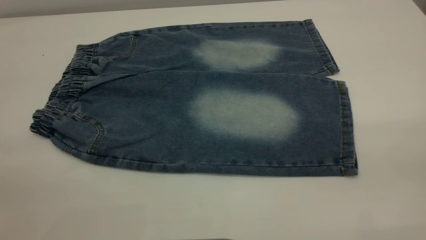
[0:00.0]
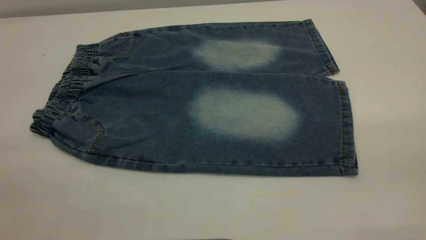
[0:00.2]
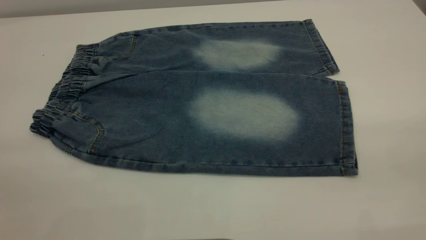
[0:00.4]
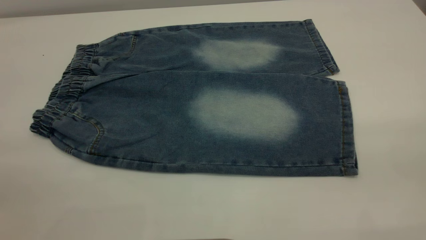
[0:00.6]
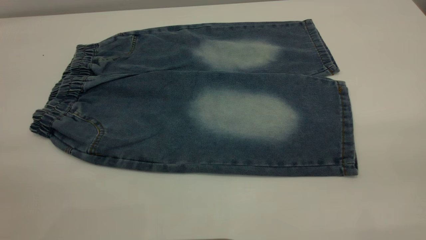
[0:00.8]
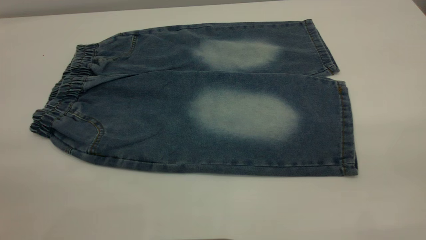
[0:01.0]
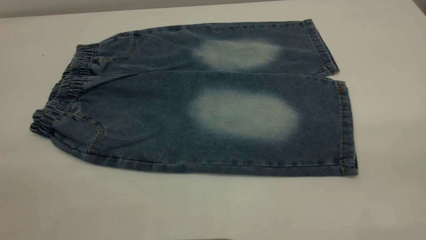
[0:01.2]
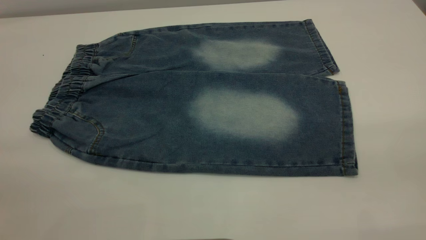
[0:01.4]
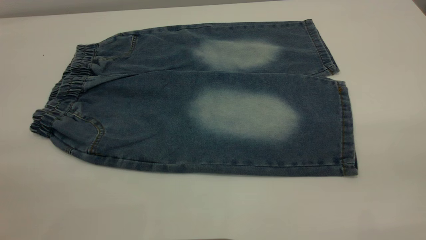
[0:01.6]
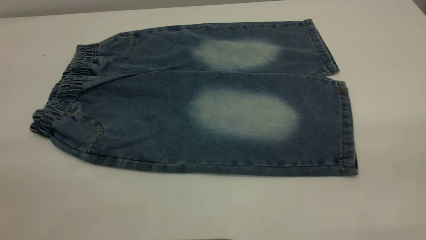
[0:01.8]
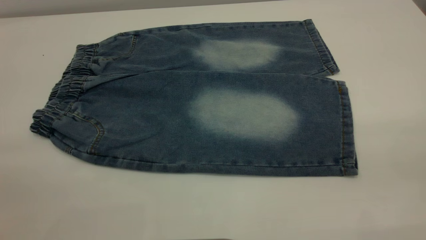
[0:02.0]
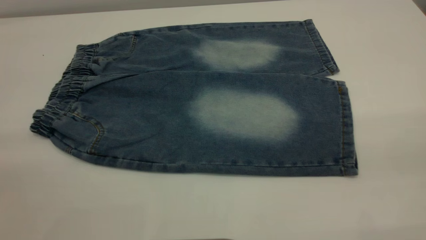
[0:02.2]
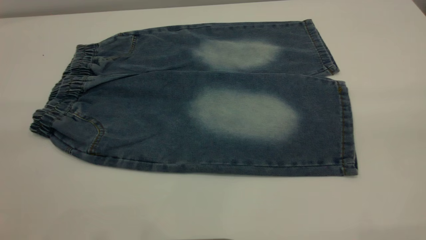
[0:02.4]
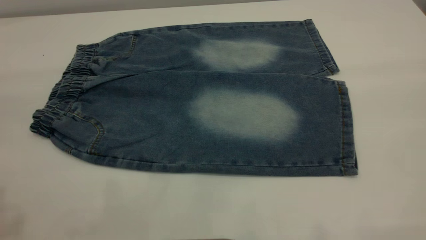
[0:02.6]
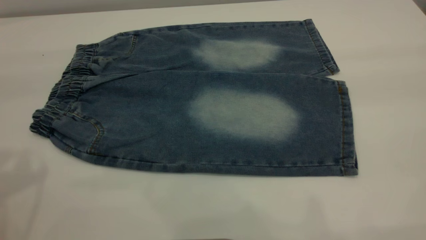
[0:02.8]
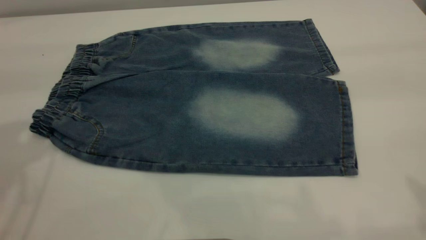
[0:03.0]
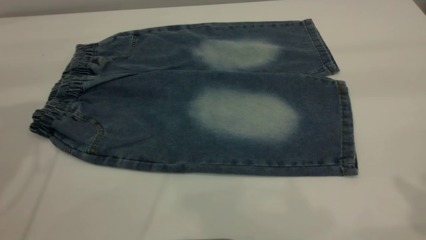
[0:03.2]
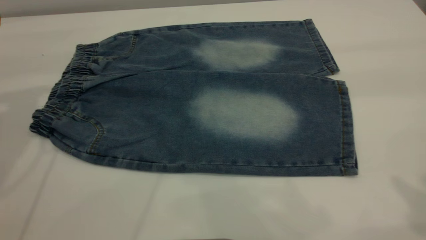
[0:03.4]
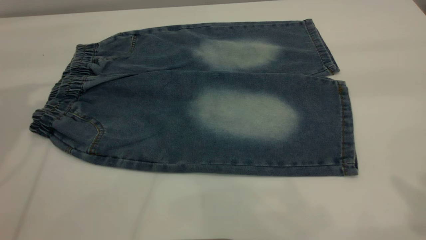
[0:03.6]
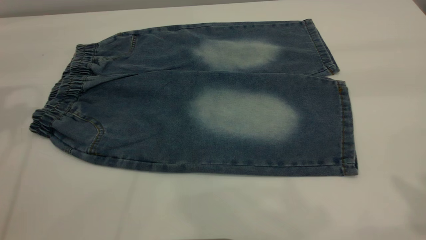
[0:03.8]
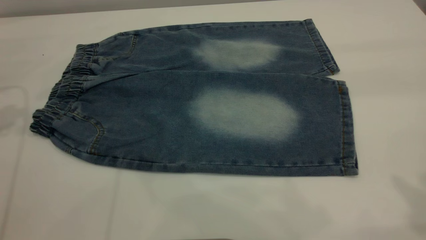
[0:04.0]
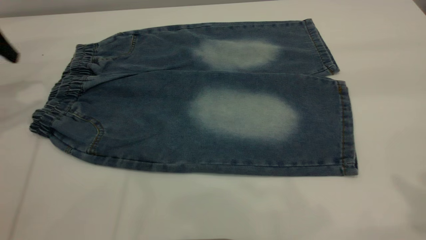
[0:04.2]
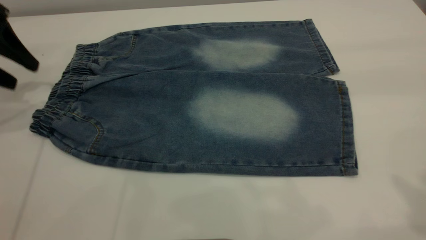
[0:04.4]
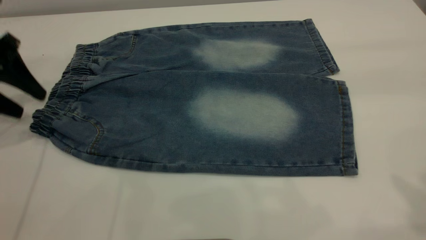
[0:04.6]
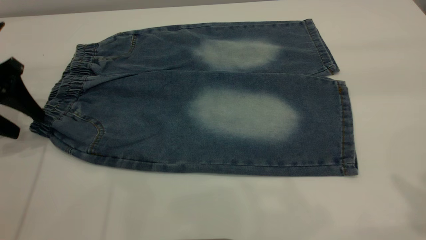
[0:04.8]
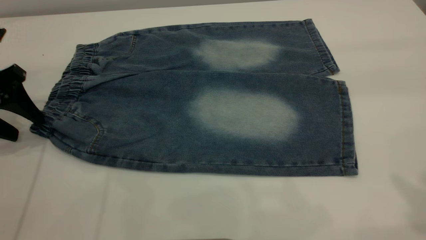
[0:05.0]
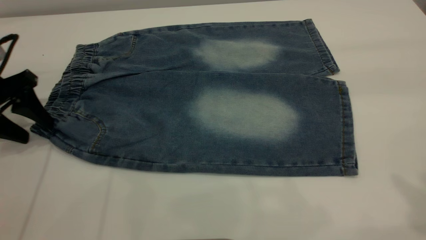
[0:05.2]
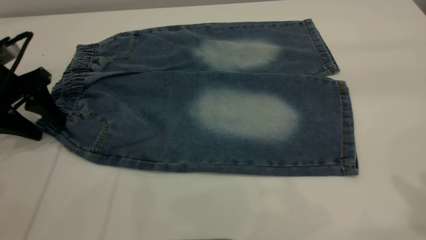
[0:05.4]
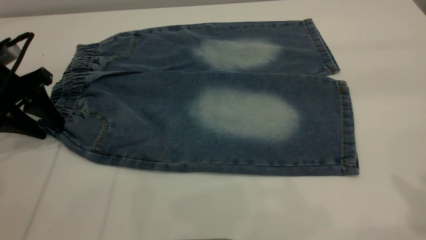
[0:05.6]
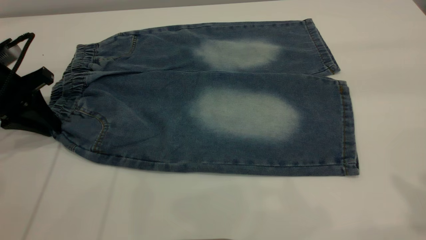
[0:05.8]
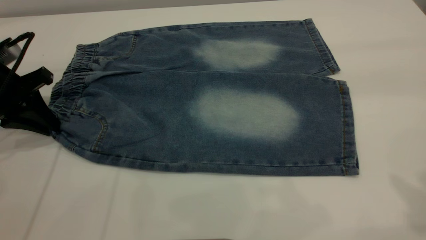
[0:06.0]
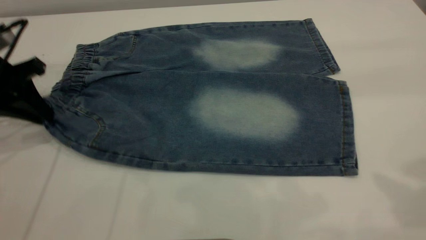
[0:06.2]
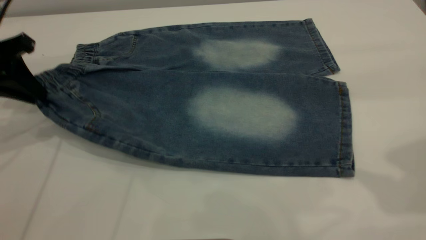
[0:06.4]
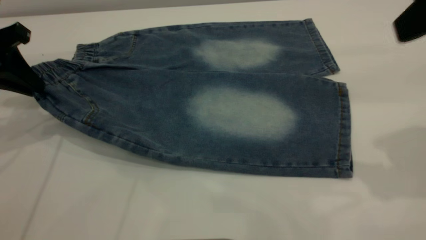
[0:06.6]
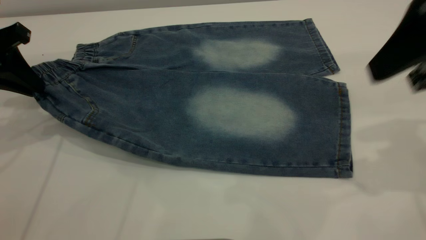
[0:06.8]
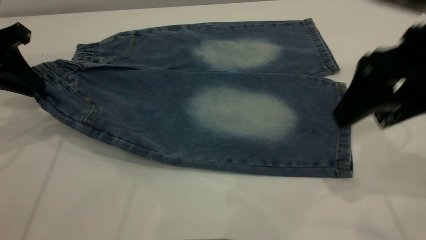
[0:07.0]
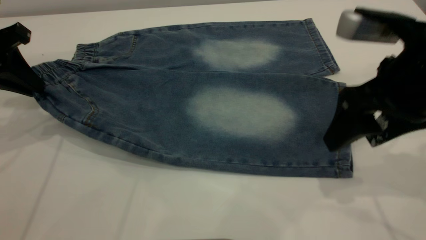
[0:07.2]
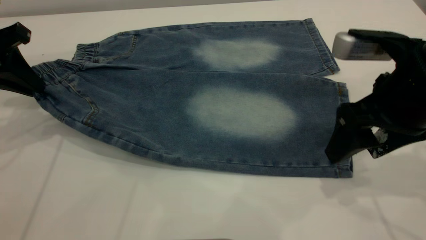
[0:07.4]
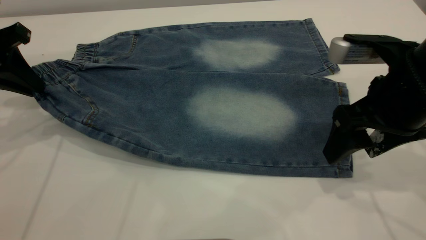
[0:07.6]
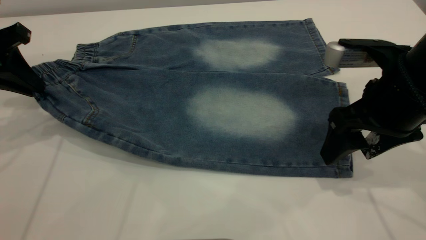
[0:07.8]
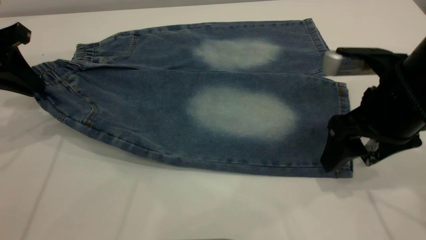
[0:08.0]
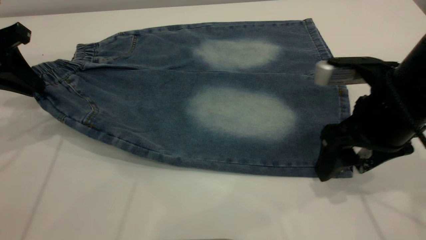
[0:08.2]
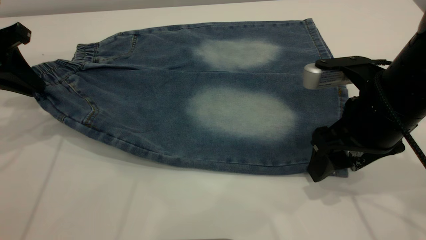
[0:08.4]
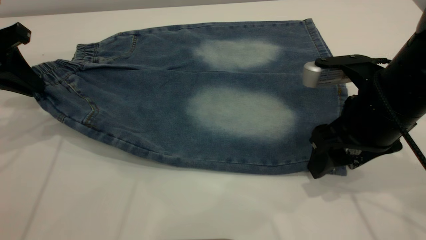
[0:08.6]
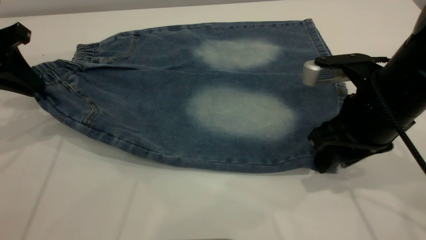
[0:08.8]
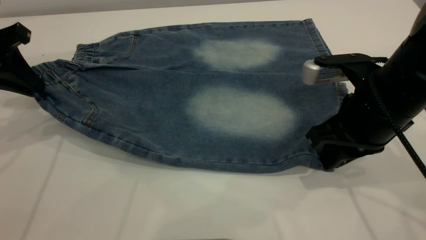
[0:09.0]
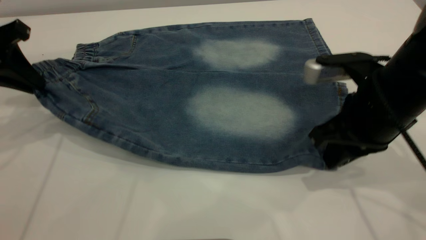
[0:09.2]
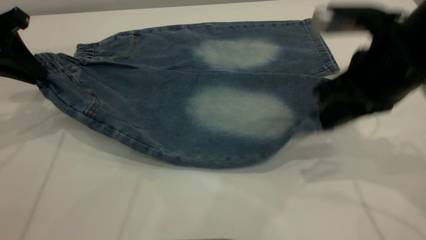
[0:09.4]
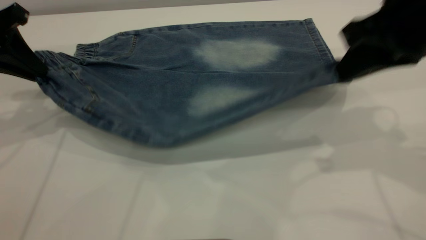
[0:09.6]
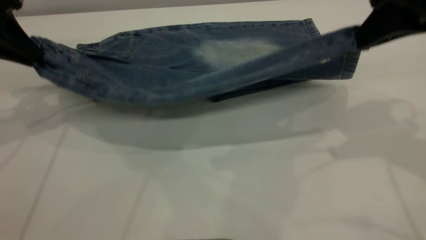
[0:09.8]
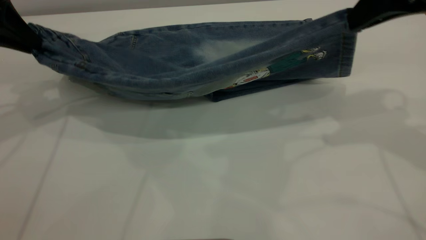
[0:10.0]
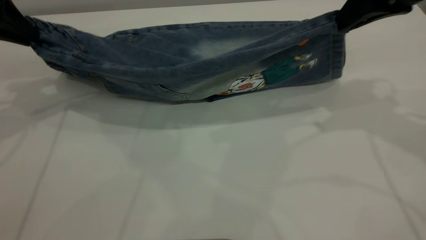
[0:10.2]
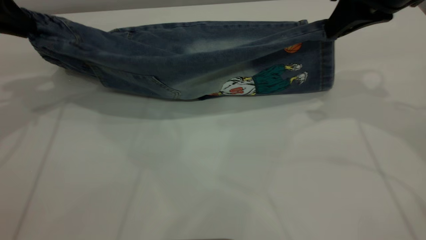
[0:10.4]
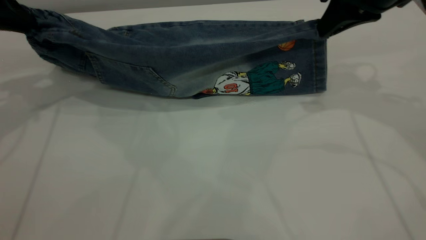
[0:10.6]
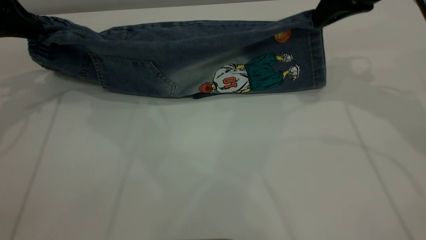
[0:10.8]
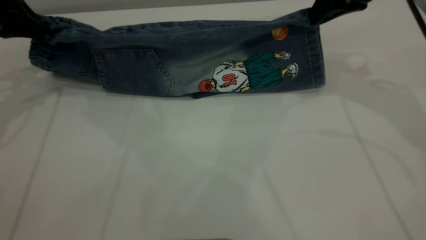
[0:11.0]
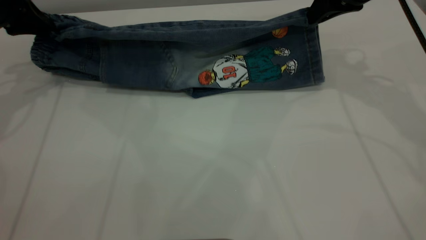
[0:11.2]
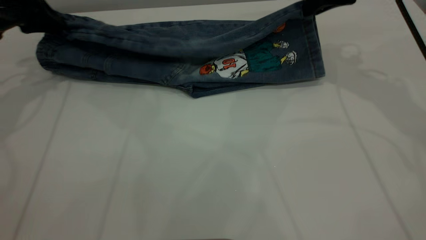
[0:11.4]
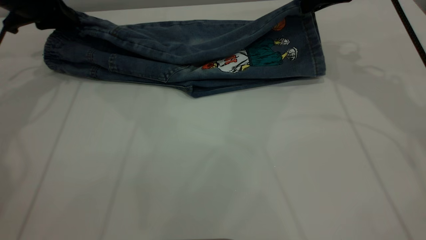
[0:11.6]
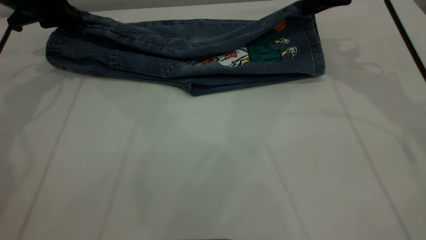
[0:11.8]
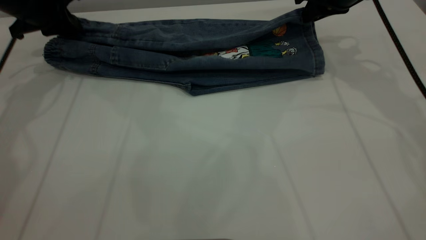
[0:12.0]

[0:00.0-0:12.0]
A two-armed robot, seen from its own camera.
0:00.0 to 0:01.6: Neither gripper changes place.
0:03.0 to 0:04.4: The left gripper moves downward, forward and to the left, some 15 cm.
0:04.4 to 0:06.0: The left gripper shifts about 5 cm downward, and closes.
0:06.0 to 0:07.6: The left gripper shifts roughly 5 cm upward. Meanwhile the right gripper shifts approximately 25 cm downward and forward.
0:07.6 to 0:09.0: The right gripper closes up.
0:09.0 to 0:10.4: The left gripper shifts by some 5 cm, while the right gripper heads upward and forward, covering approximately 15 cm.
0:10.4 to 0:12.0: Both grippers move forward and downward, roughly 15 cm.

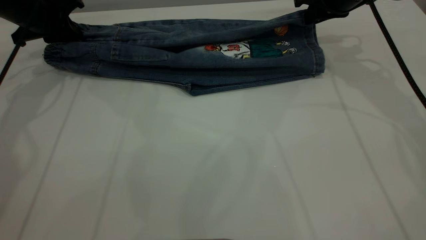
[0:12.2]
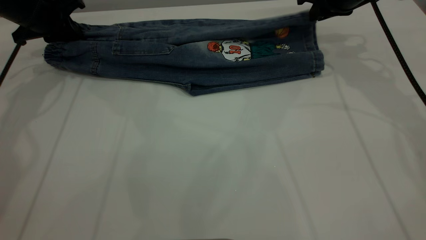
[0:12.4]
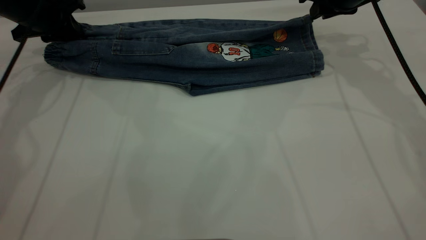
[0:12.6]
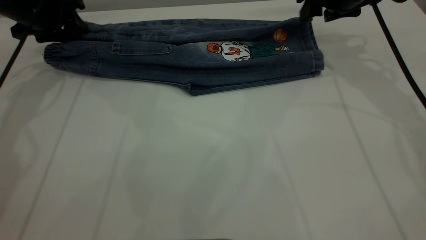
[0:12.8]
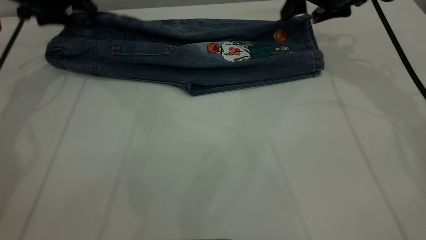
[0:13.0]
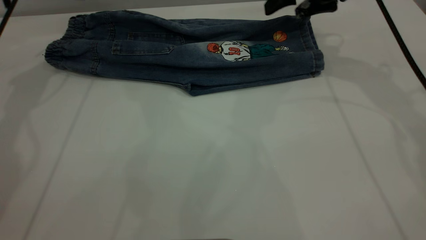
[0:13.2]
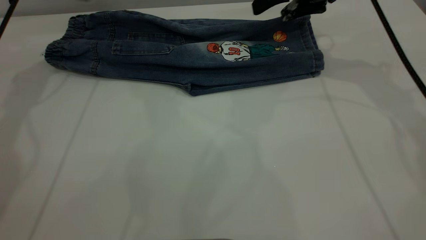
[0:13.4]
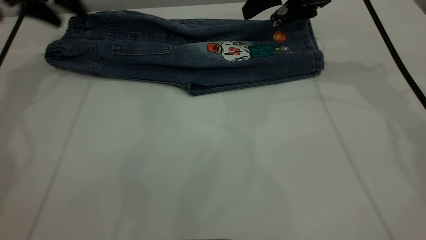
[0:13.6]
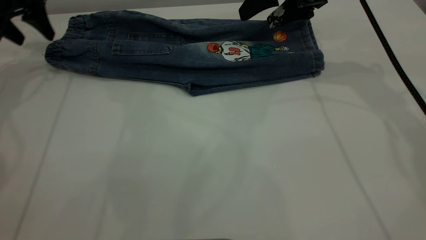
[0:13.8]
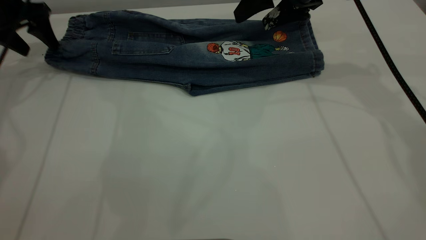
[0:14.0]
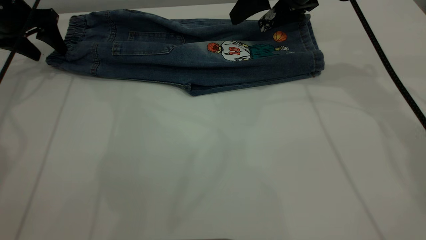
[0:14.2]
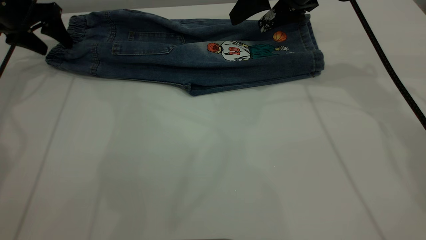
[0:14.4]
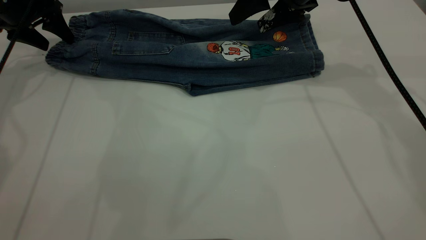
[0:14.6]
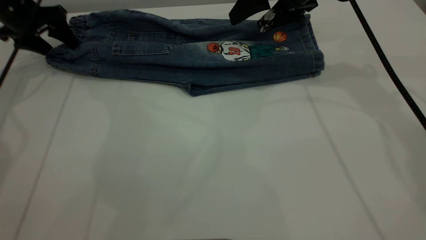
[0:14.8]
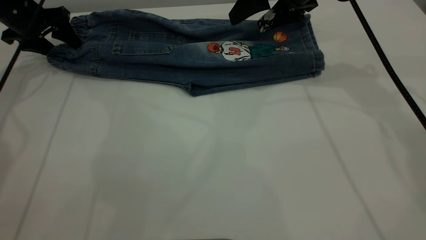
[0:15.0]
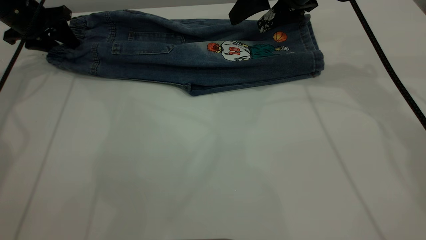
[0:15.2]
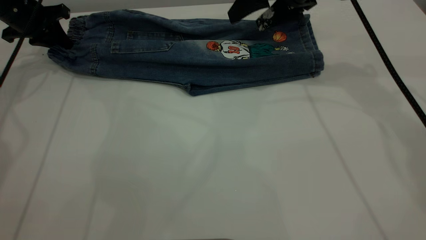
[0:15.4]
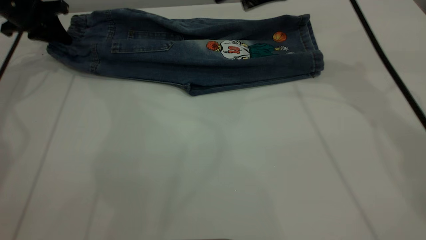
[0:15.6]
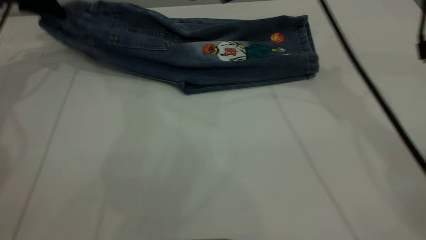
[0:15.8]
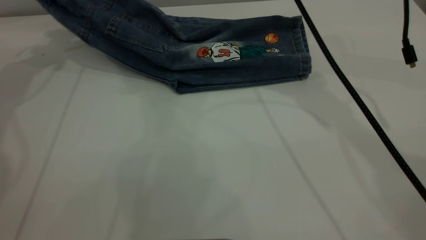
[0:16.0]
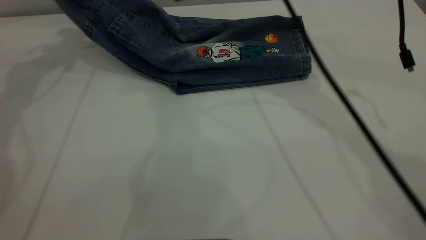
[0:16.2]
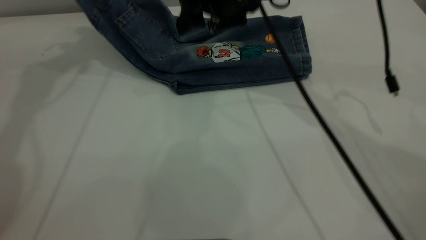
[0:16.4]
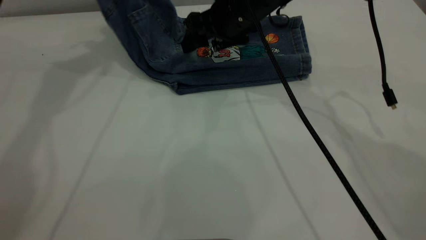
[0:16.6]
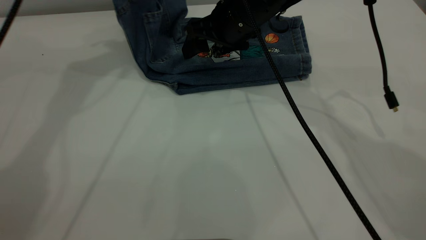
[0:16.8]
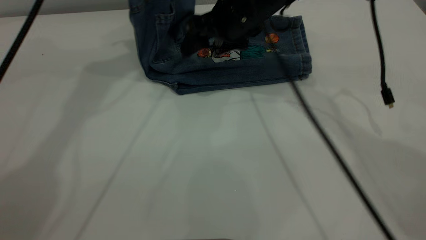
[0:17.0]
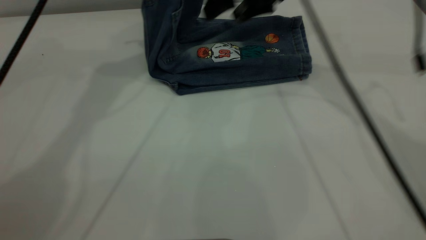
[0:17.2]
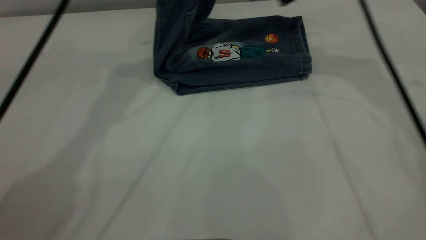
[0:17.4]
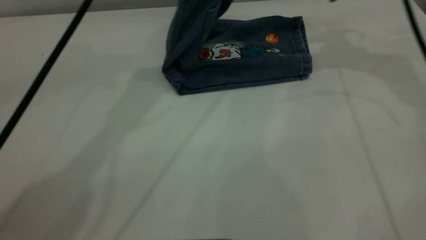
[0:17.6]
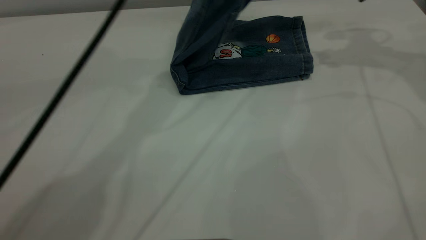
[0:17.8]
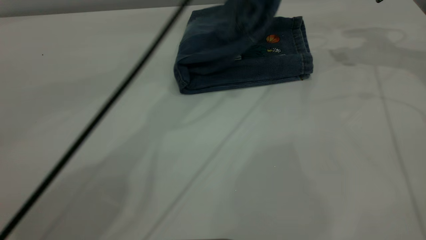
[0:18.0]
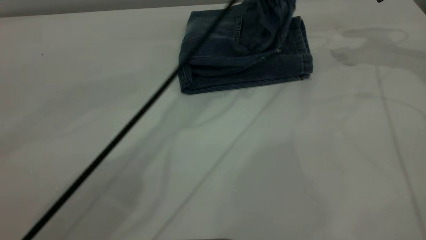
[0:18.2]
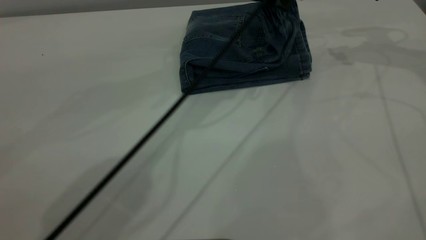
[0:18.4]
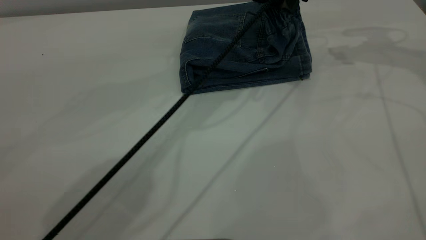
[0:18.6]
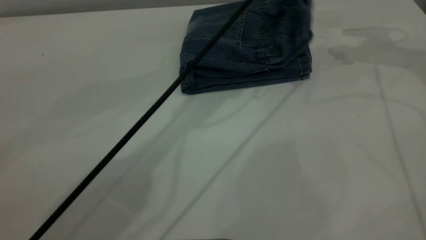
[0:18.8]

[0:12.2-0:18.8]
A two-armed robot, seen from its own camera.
0:12.2 to 0:13.8: The right gripper is displaced to the left by about 5 cm, and opens its fingers. Meanwhile the left gripper shifts by roughly 5 cm, and opens.
0:13.8 to 0:15.4: The left gripper moves about 5 cm, and closes up.
0:15.4 to 0:17.2: The right gripper moves approximately 10 cm to the left and comes back. The left gripper shifts about 30 cm to the right and upward.
0:17.2 to 0:18.8: The right gripper heads to the right, covering roughly 15 cm, while the left gripper goes roughly 20 cm to the right and downward, and opens up.
